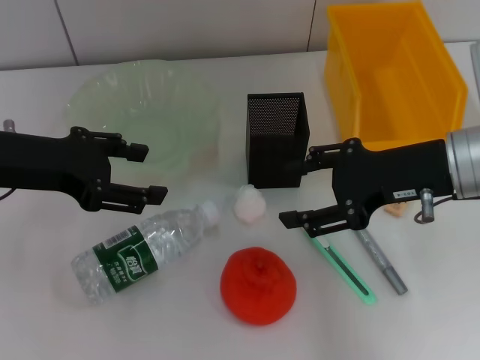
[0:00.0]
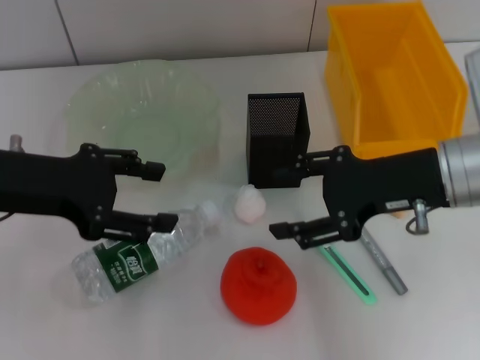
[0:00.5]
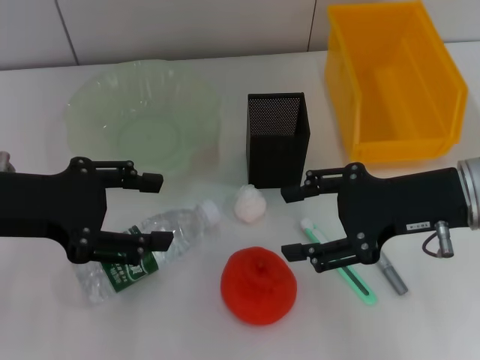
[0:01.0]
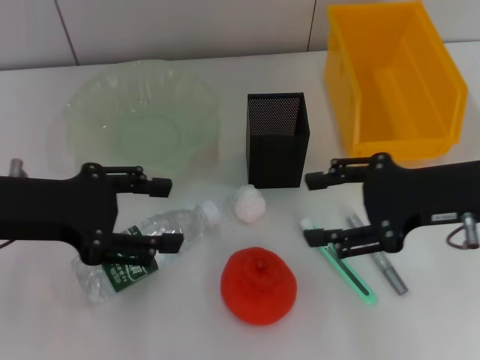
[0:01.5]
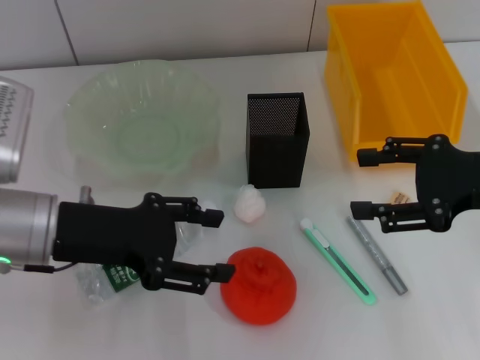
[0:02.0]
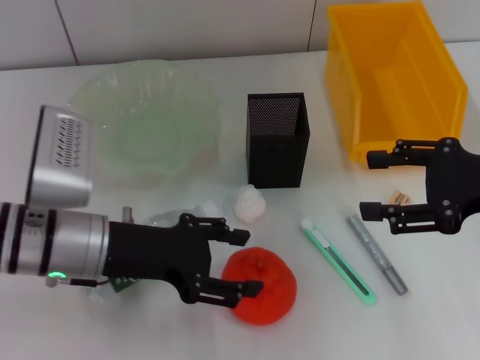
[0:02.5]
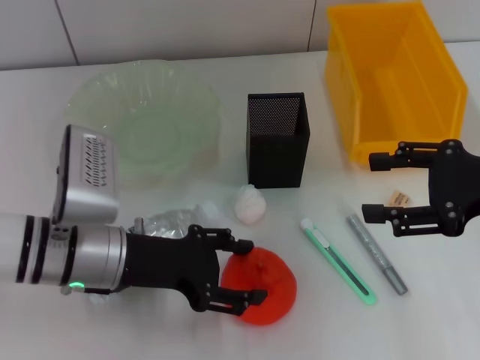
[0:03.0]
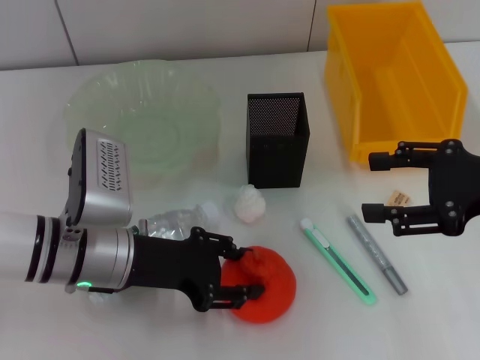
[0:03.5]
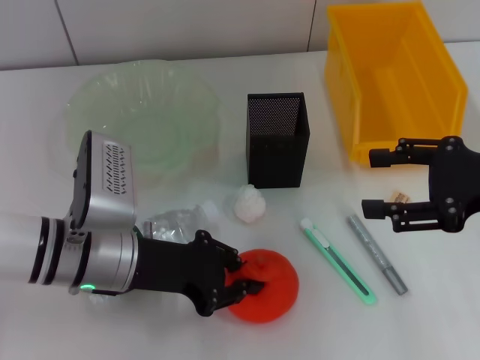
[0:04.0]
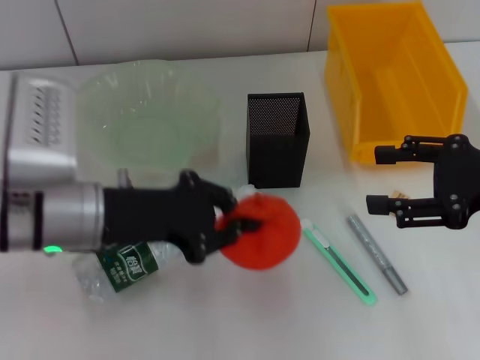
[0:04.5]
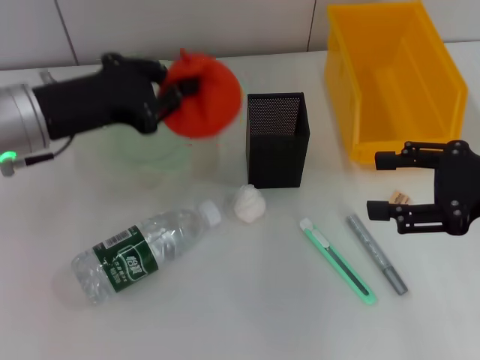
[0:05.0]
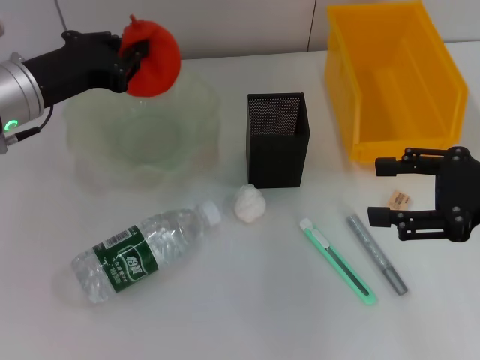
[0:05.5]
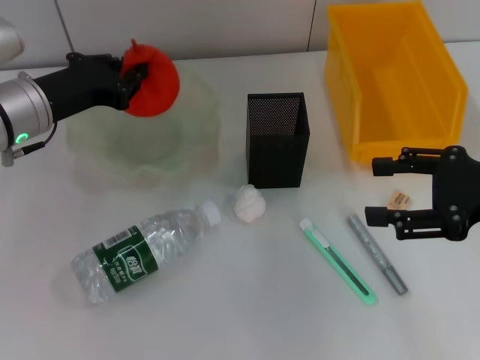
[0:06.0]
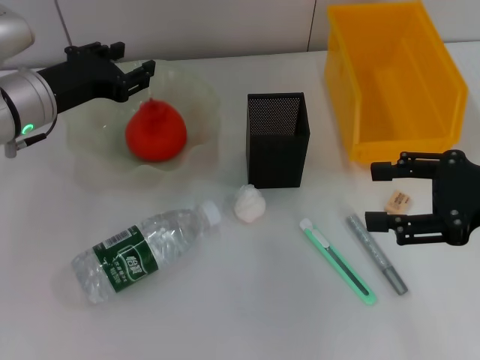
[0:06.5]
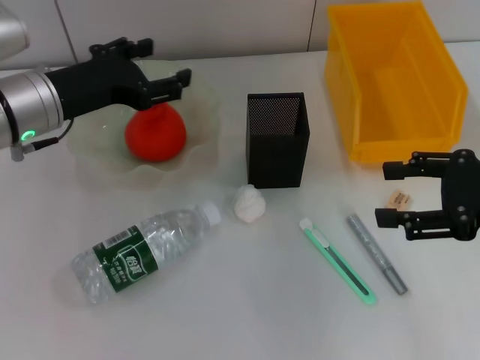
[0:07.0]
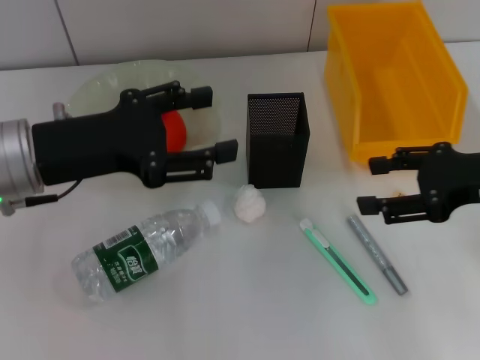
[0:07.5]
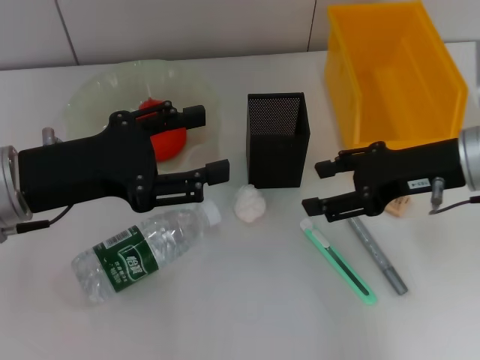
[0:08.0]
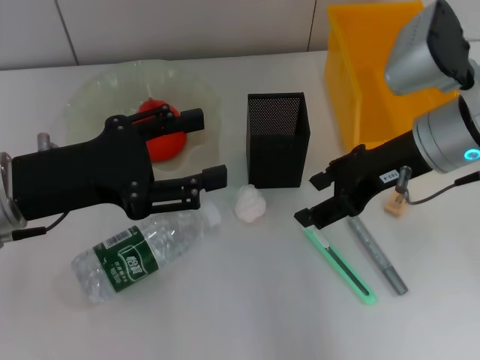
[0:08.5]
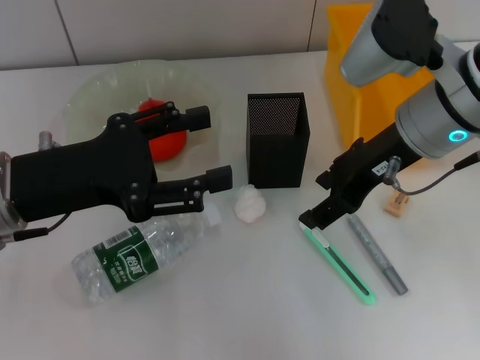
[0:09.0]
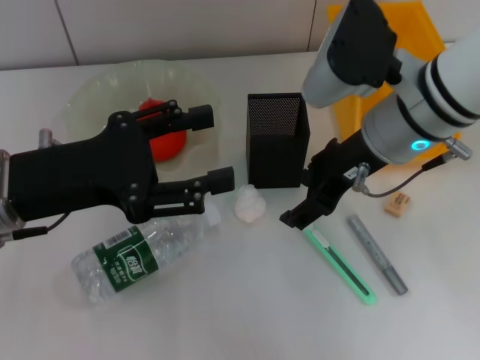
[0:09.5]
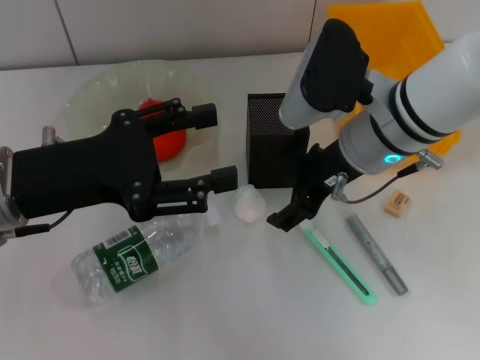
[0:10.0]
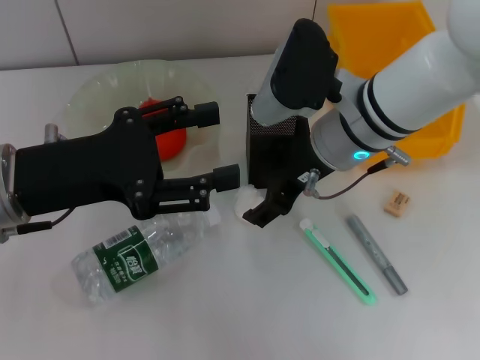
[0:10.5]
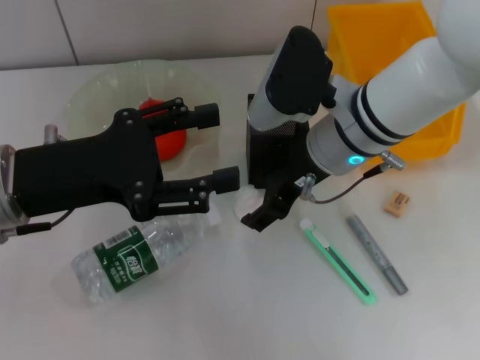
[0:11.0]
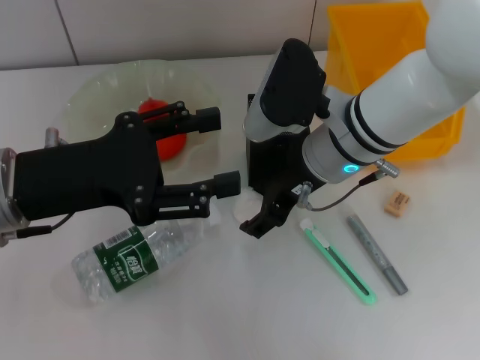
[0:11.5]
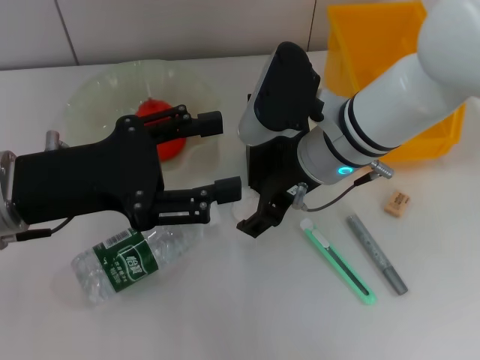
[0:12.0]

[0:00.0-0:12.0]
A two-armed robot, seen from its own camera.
Step, 0:00.0 to 0:03.5: Grab the orange with the left hand.
Step, 0:04.0 to 0:06.5: Place the orange into the fruit bowl with the left hand.
0:00.0 to 0:02.0: The right gripper travels to the right by roughly 5 cm. The left gripper moves roughly 5 cm.
0:02.0 to 0:04.0: The left gripper travels downward by some 5 cm, and closes.
0:04.0 to 0:06.0: The left gripper moves forward, to the left and upward, roughly 15 cm.
0:06.0 to 0:08.0: The left gripper heads backward, covering roughly 10 cm, and opens up. Meanwhile the right gripper moves forward and to the left, some 10 cm.
0:08.0 to 0:10.0: The right gripper shifts some 10 cm to the left.
0:10.0 to 0:12.0: The grippers stay close to where they were, moving slightly.

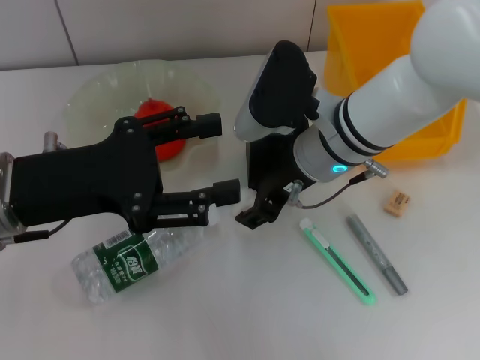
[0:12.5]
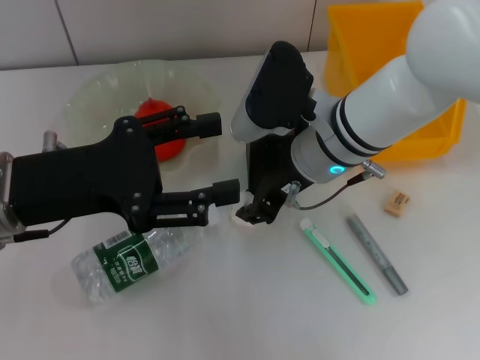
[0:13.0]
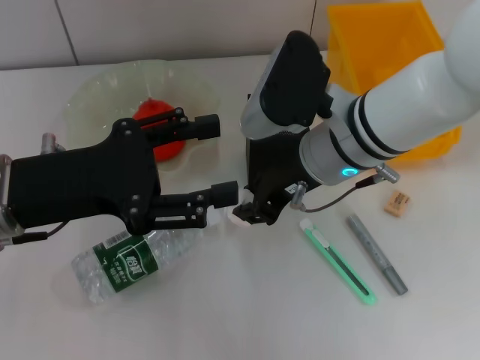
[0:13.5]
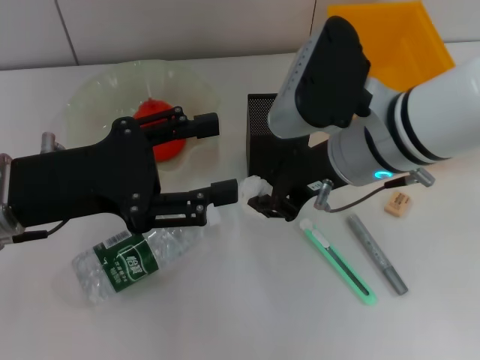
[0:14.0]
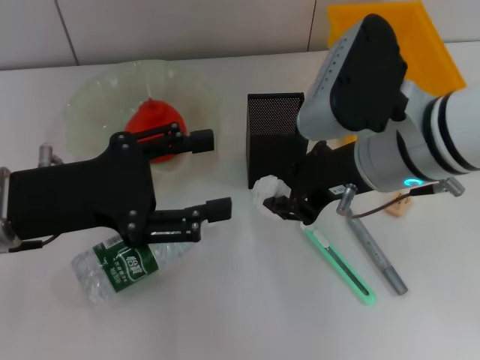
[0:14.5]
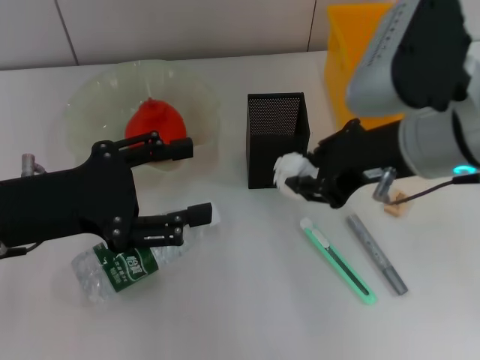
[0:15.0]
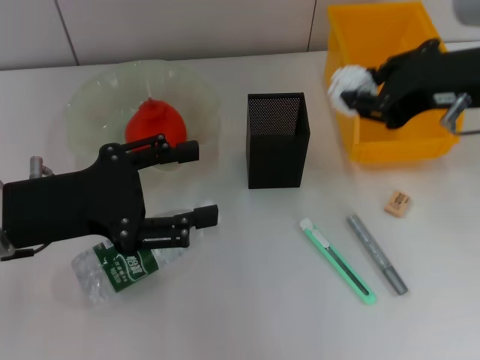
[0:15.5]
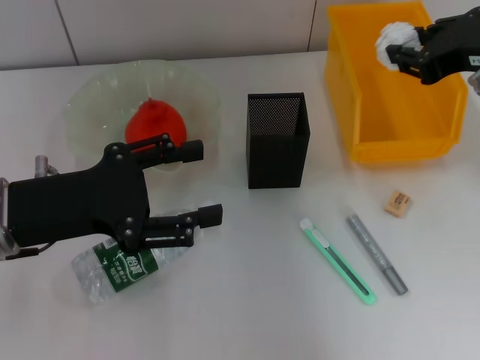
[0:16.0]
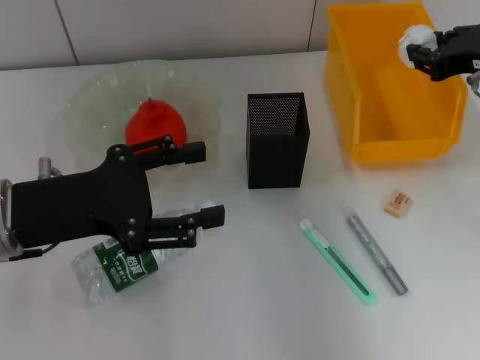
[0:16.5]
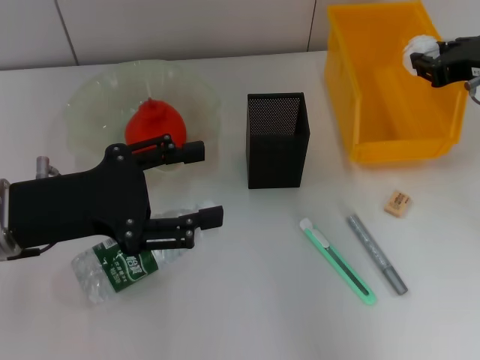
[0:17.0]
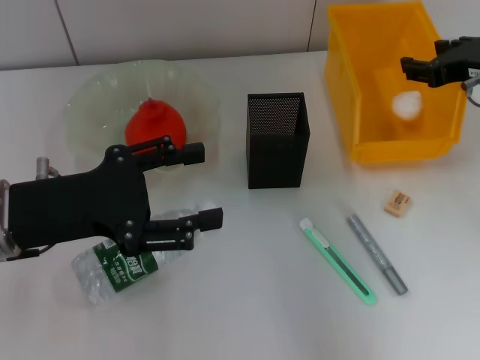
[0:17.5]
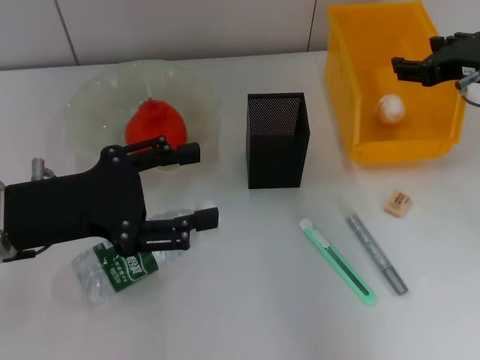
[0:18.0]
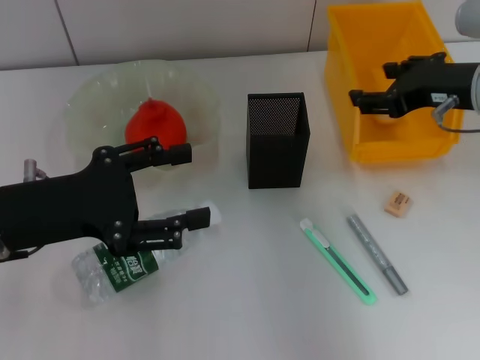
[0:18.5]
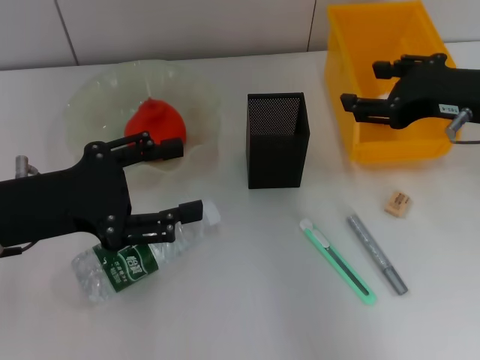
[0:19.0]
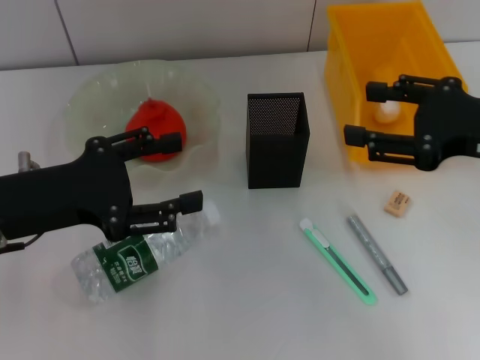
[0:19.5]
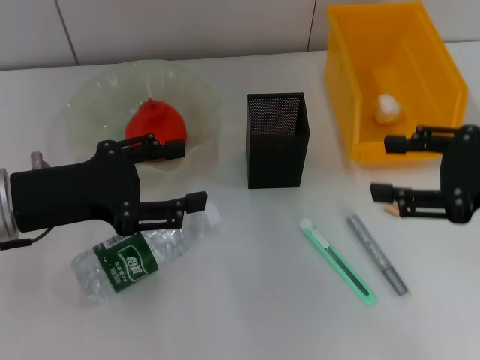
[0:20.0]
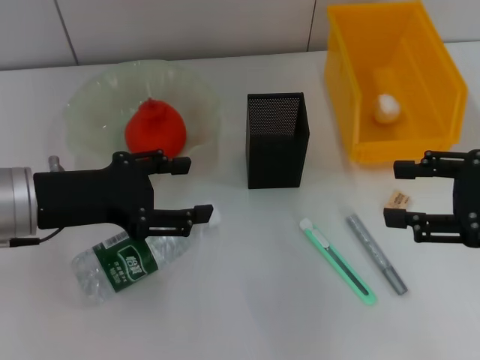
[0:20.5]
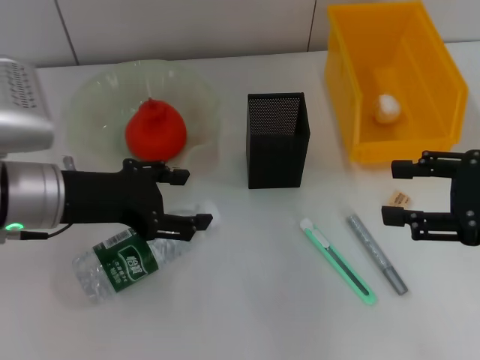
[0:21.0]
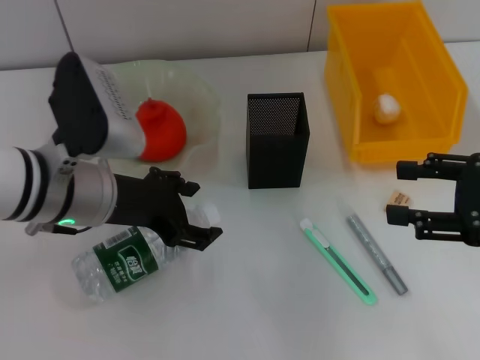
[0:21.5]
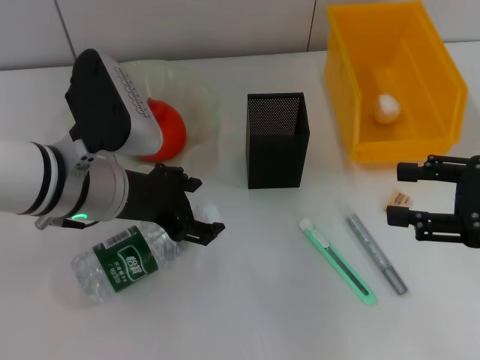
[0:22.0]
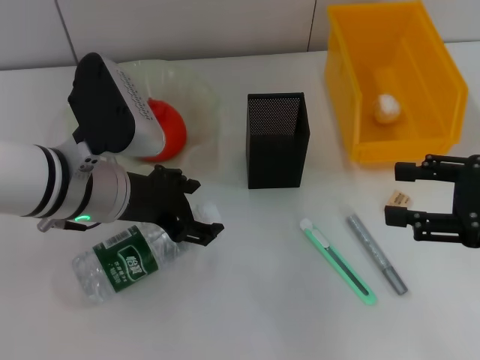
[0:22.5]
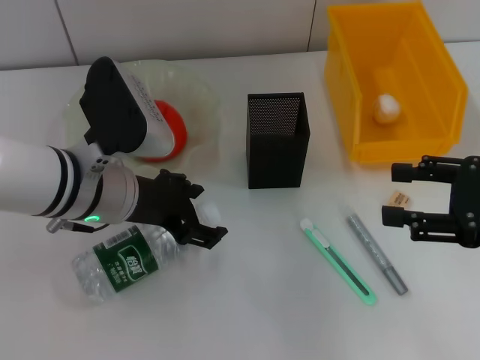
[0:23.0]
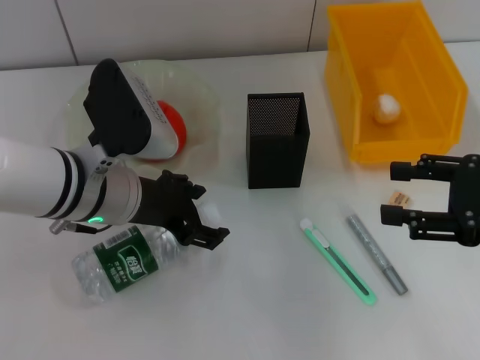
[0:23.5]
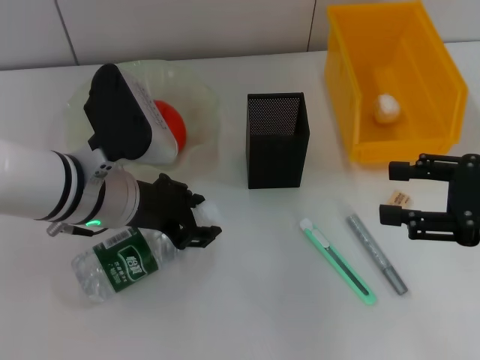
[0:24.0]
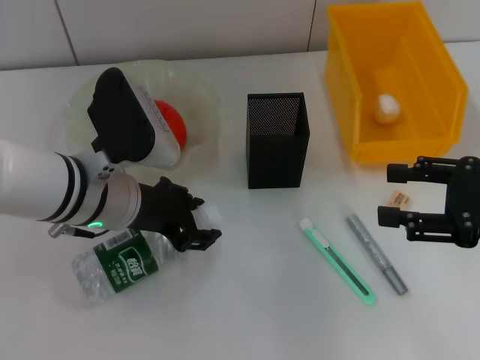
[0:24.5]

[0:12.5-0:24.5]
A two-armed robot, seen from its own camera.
Step, 0:13.5 to 0:18.0: Place the paper ball into the trash can with the right hand.
0:12.5 to 0:14.5: The right gripper goes some 10 cm backward and upward, and closes its fingers.
0:14.5 to 0:16.5: The right gripper shifts approximately 15 cm to the right.
0:16.5 to 0:18.5: The right gripper opens its fingers.
0:18.5 to 0:20.5: The right gripper goes roughly 10 cm backward and to the right.
0:20.5 to 0:22.5: The left gripper shifts some 5 cm to the right.
0:22.5 to 0:24.5: The left gripper closes its fingers.

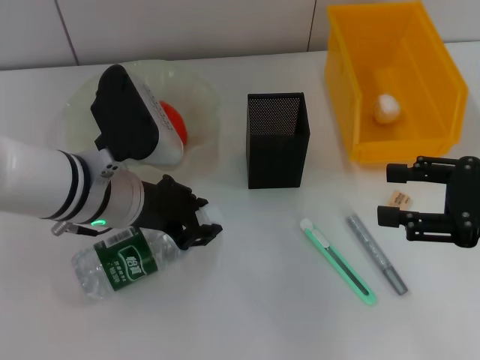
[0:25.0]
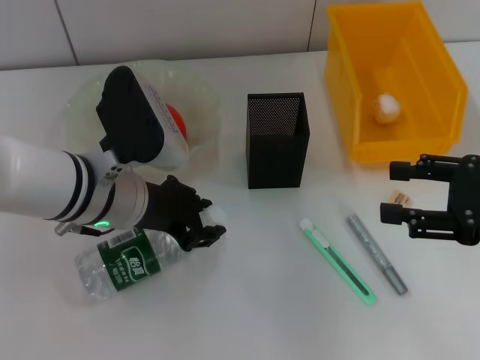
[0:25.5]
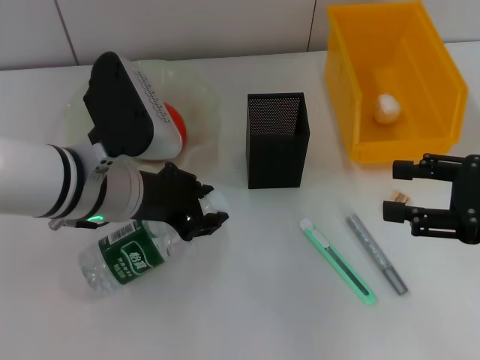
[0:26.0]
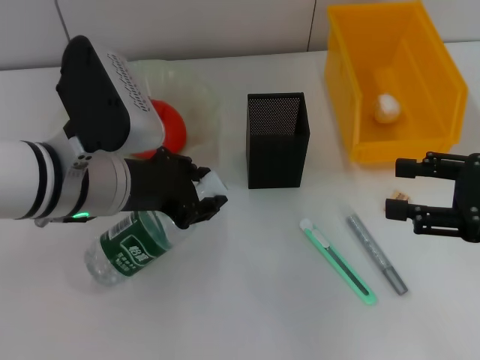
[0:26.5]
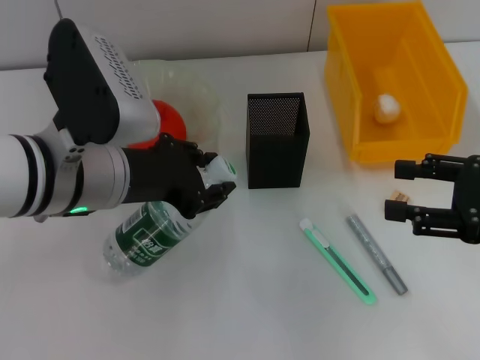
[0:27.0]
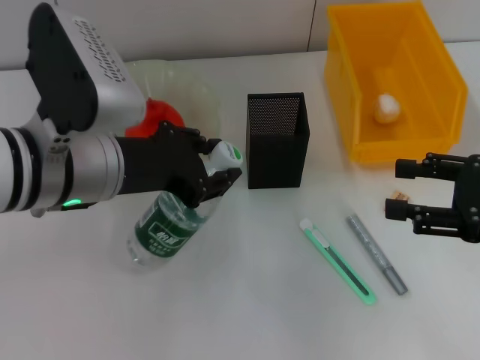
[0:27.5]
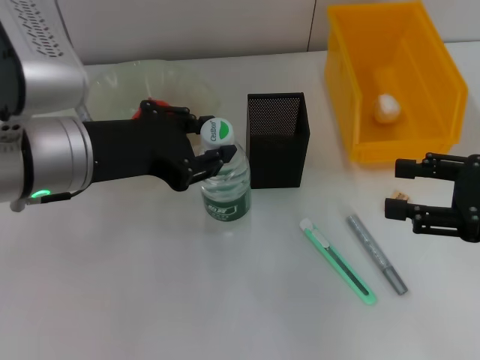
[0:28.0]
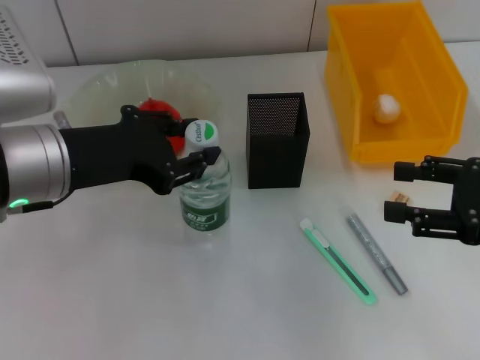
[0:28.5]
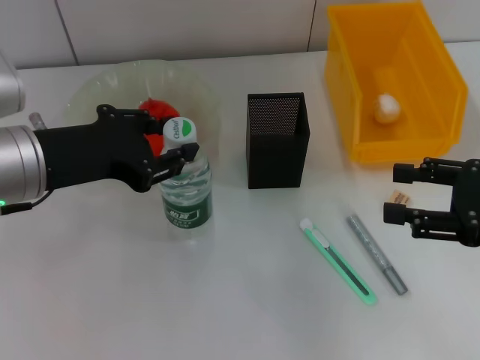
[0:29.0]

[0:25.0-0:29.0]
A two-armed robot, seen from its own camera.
0:25.0 to 0:27.0: The left gripper is displaced upward by some 5 cm.
0:27.0 to 0:29.0: The left gripper shifts about 5 cm to the left.
